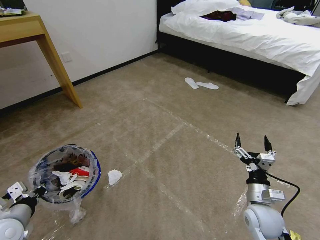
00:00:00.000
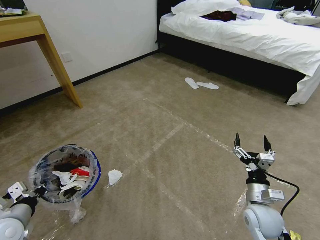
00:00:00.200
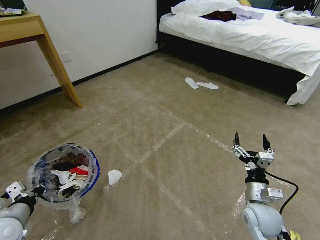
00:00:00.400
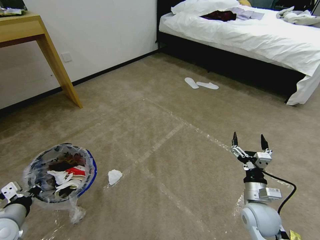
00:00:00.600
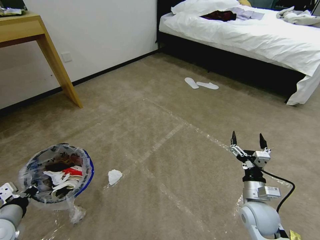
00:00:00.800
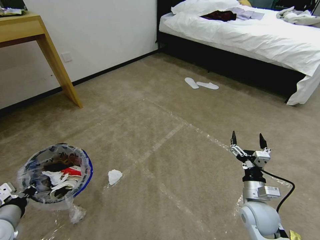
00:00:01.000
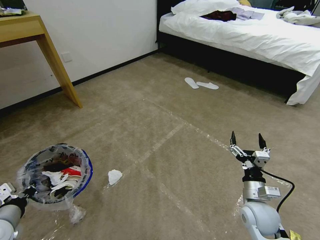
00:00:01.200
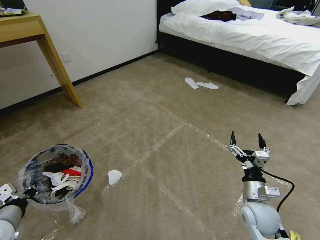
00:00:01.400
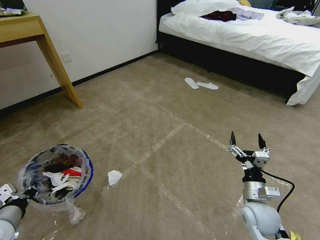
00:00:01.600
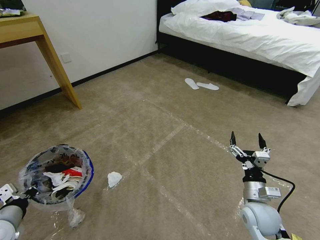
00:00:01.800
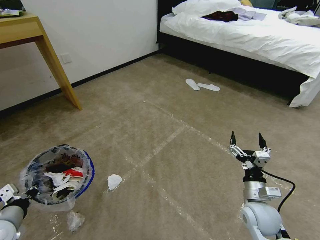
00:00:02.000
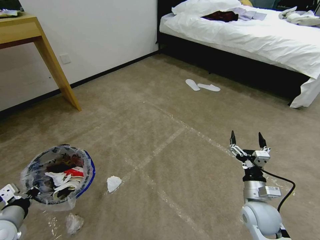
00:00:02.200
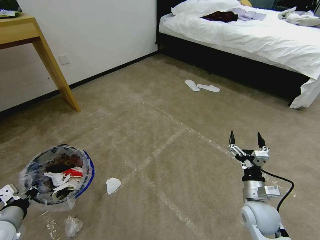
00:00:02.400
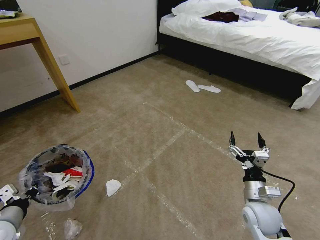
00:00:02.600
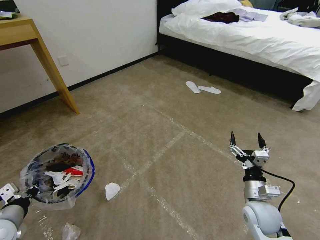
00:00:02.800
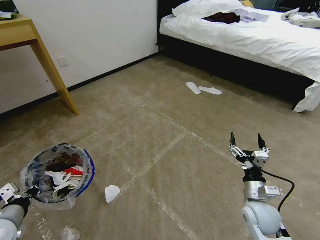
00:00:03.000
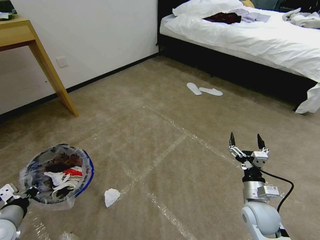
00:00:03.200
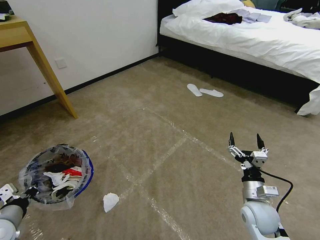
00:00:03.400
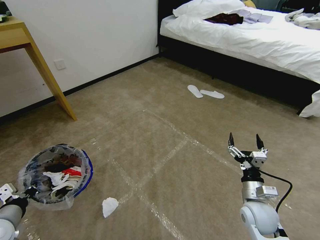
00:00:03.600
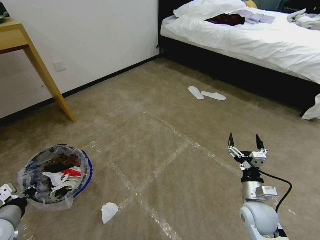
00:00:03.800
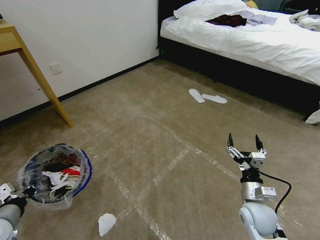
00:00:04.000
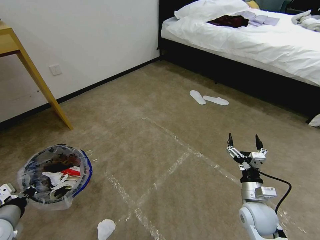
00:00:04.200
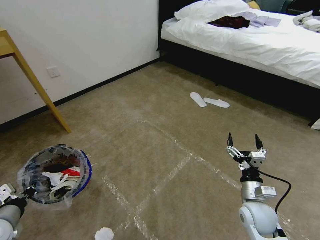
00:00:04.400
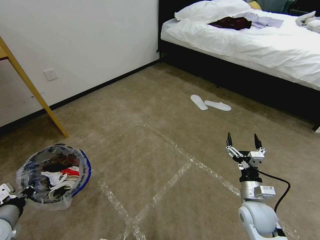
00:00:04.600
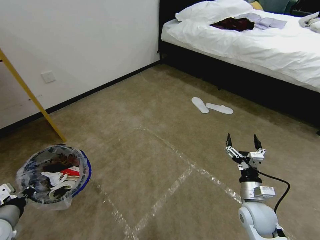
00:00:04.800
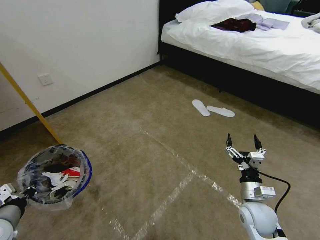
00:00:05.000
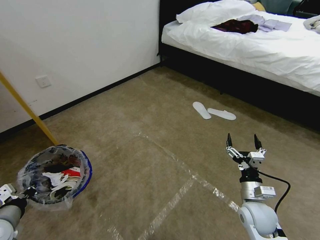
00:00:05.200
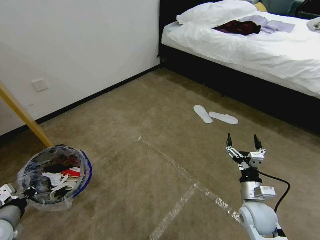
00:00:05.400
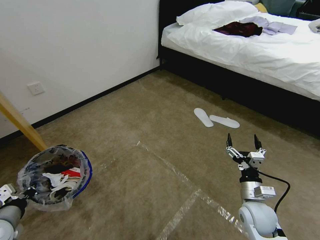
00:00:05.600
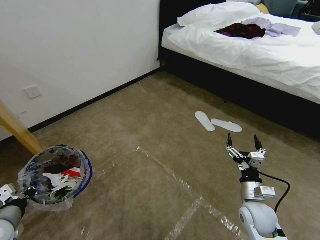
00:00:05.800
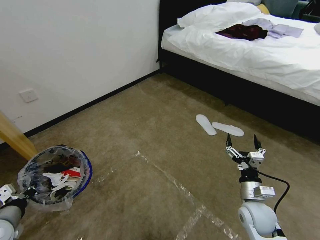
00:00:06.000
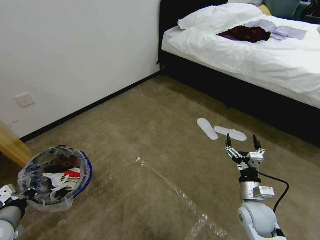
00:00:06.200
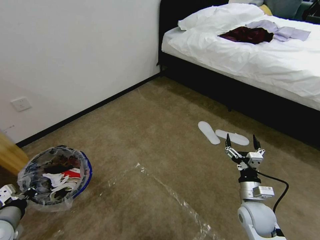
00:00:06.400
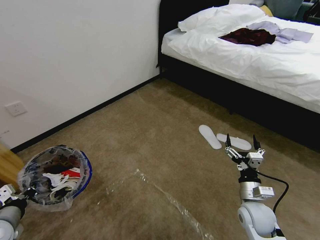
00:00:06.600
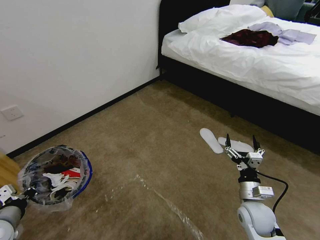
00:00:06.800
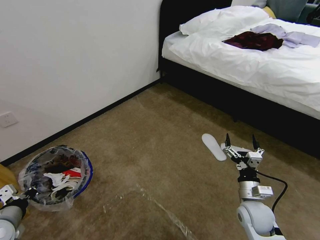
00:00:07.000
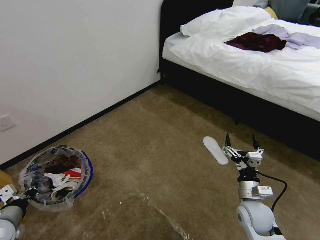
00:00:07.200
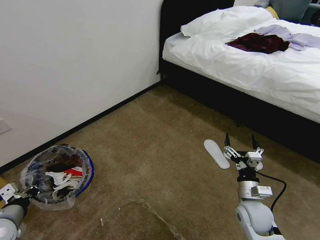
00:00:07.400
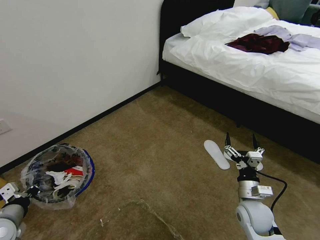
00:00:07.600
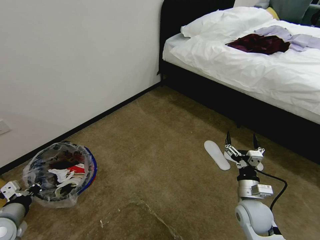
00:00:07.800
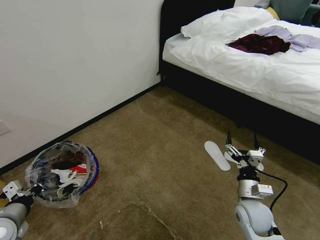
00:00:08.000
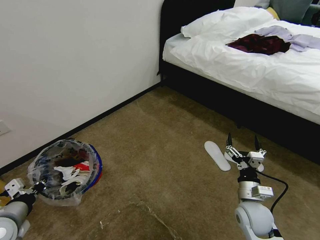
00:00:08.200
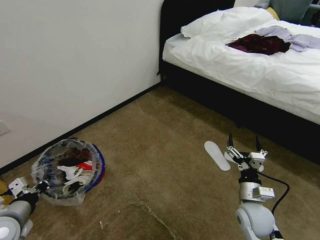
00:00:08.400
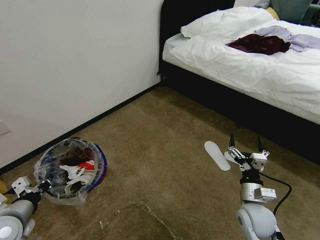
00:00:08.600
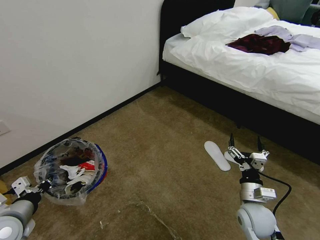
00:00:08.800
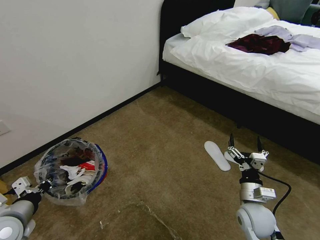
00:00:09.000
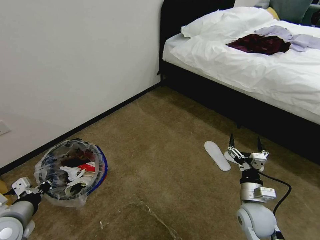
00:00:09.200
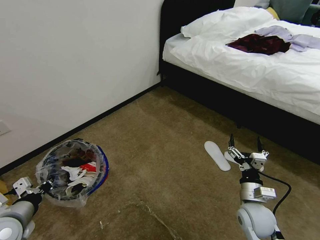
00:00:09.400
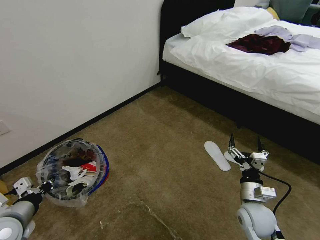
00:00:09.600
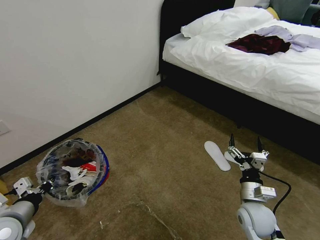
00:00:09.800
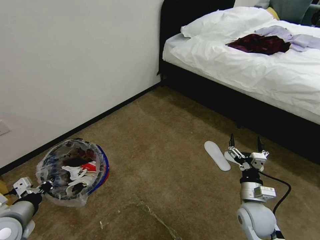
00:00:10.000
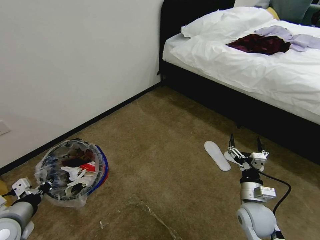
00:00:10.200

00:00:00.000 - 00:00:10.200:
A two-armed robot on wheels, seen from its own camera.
Task of the whole recording: Pick up the trash bin and place the garbage on the floor into it.
00:00:00.000 - 00:00:01.400: The grippers move only a little.
00:00:01.400 - 00:00:03.000: Both grippers stay put.
00:00:07.200 - 00:00:08.800: The grippers move only a little.
00:00:08.800 - 00:00:10.200: Both grippers stay about where they are.
